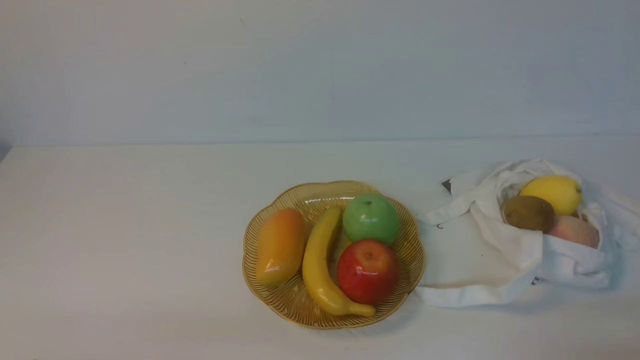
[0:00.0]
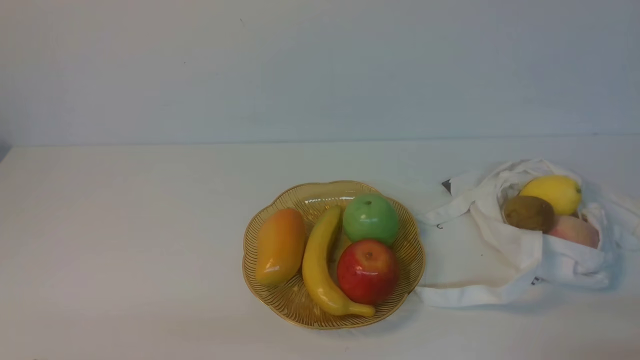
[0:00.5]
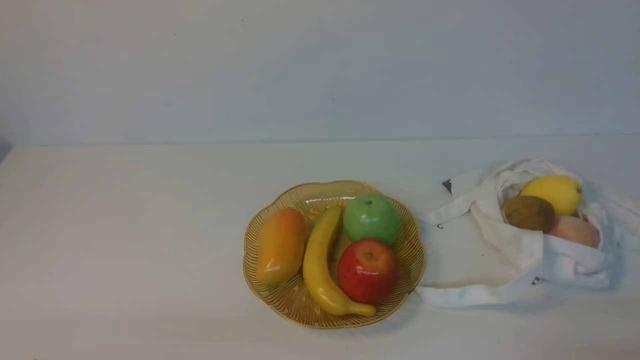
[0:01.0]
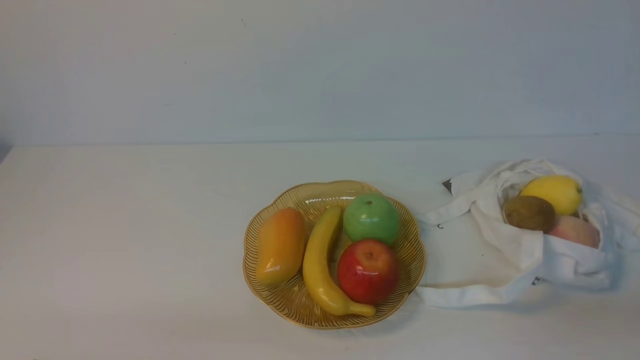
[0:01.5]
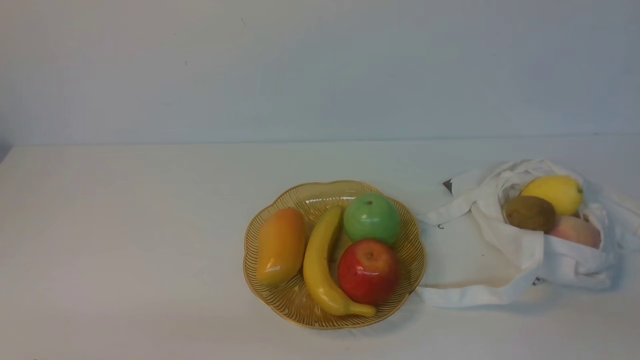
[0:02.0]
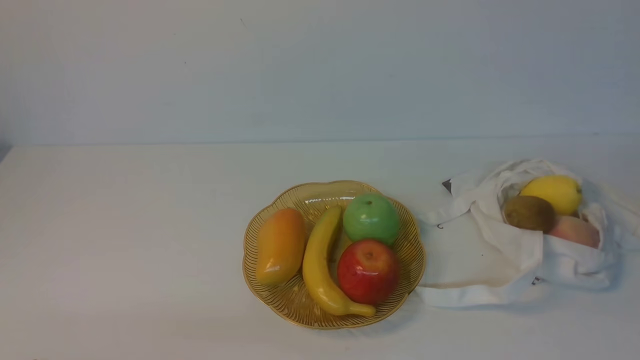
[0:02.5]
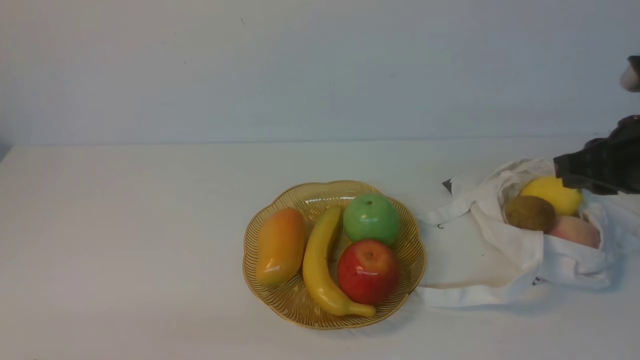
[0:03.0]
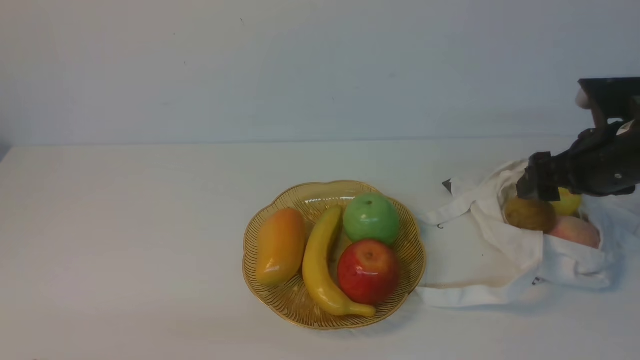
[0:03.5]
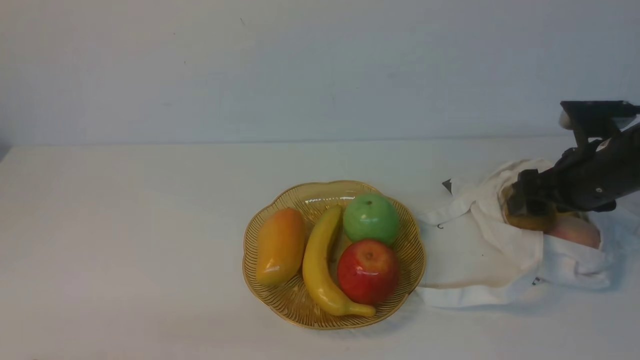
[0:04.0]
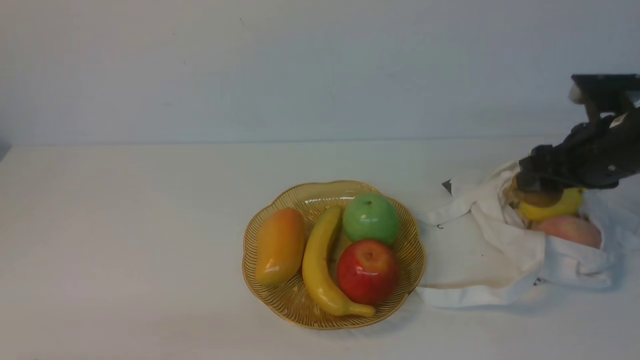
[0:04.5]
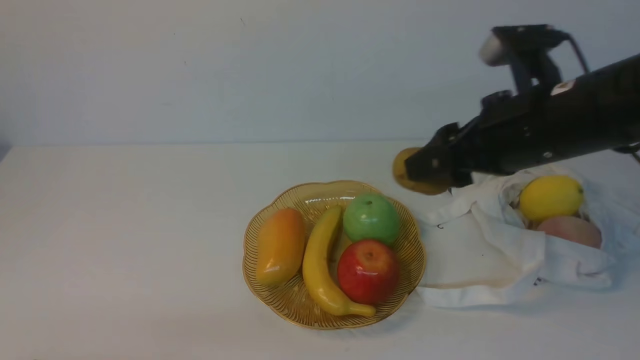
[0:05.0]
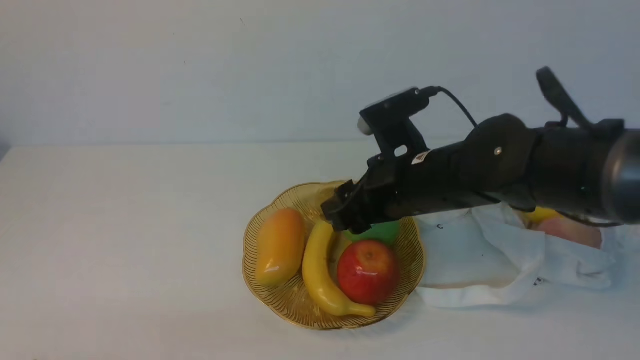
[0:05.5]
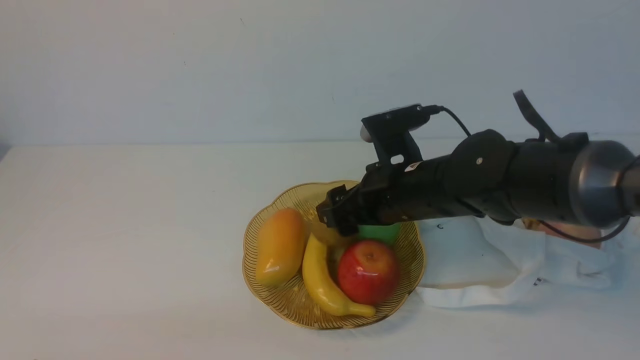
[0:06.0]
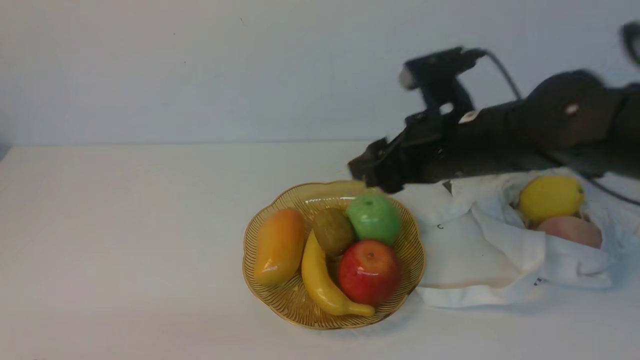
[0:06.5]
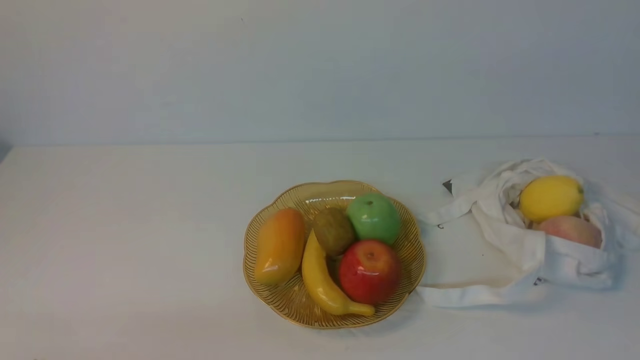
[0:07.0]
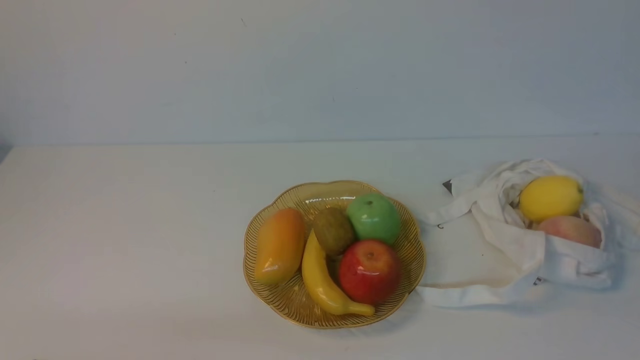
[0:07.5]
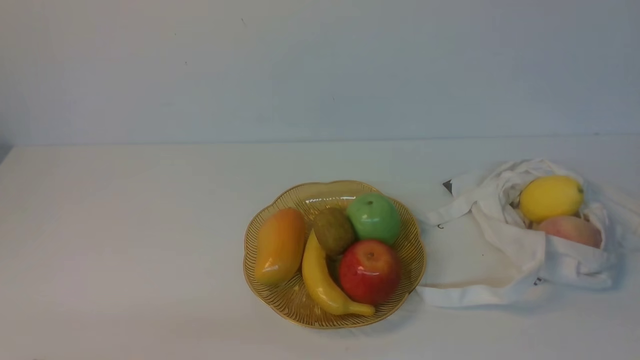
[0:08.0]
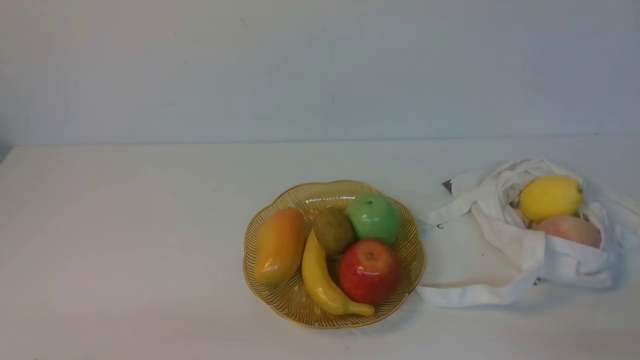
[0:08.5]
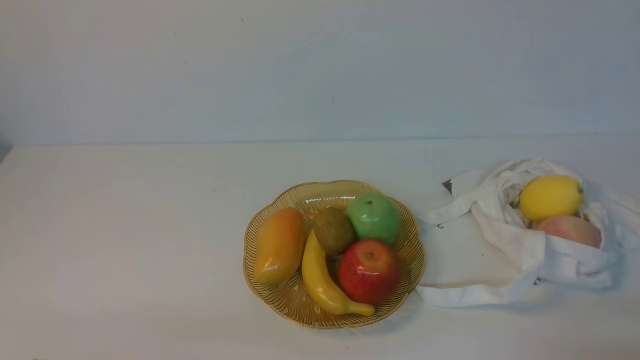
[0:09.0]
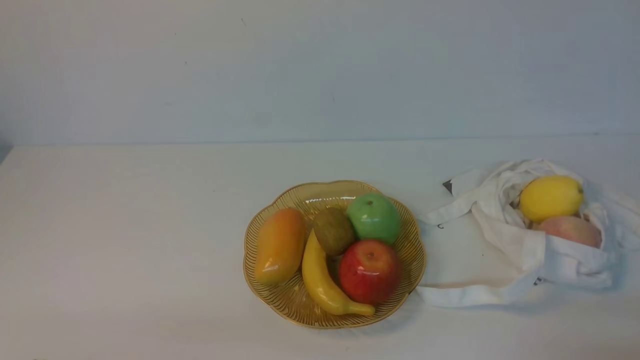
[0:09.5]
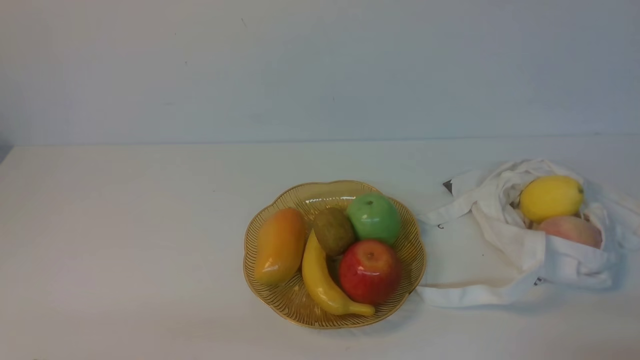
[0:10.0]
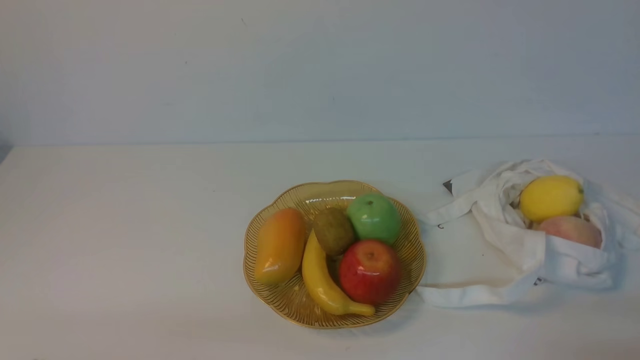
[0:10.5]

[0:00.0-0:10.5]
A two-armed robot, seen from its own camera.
Step, 0:00.0 to 0:04.0: use the right arm to grab a kiwi from the bag.
Step, 0:04.5 to 0:06.0: use the right arm to put the kiwi into the empty plate on the left.
0:02.0 to 0:04.0: The right gripper moves forward, roughly 30 cm, and opens its fingers.
0:04.0 to 0:06.5: The right gripper is displaced to the left and upward by about 20 cm.
0:06.5 to 0:08.5: The right gripper is displaced backward and to the right by approximately 30 cm, and closes up.
